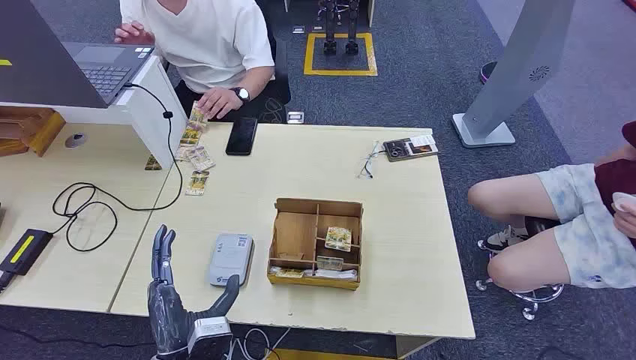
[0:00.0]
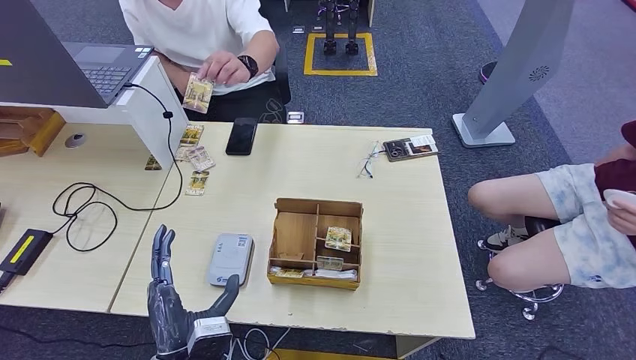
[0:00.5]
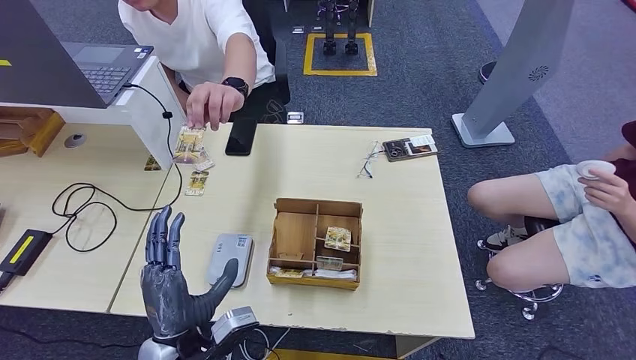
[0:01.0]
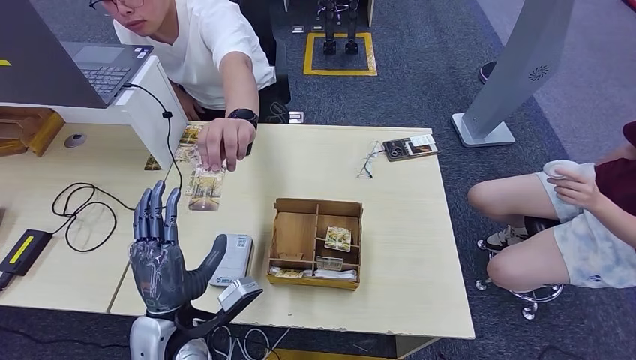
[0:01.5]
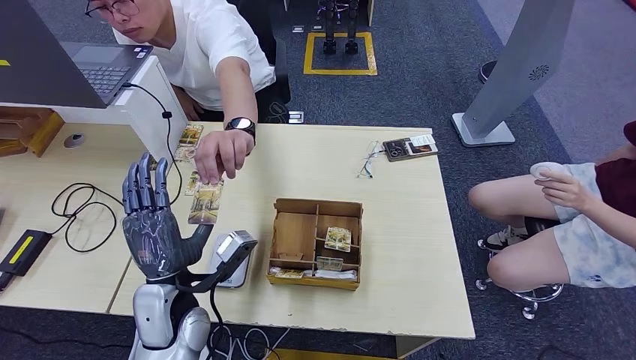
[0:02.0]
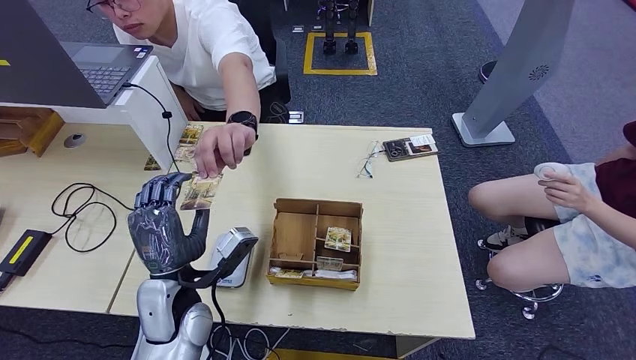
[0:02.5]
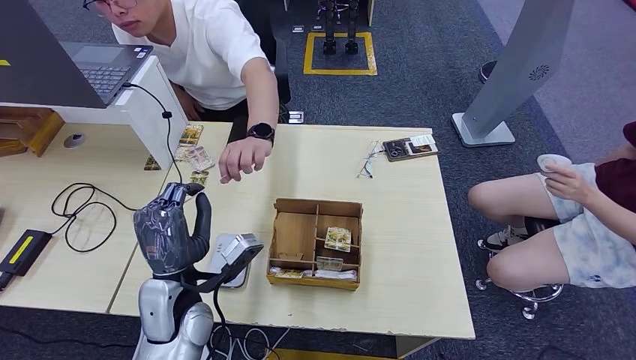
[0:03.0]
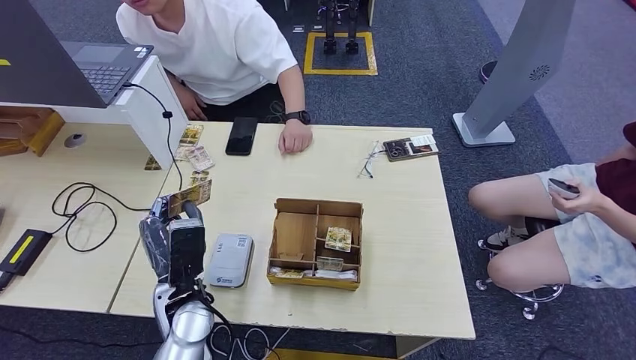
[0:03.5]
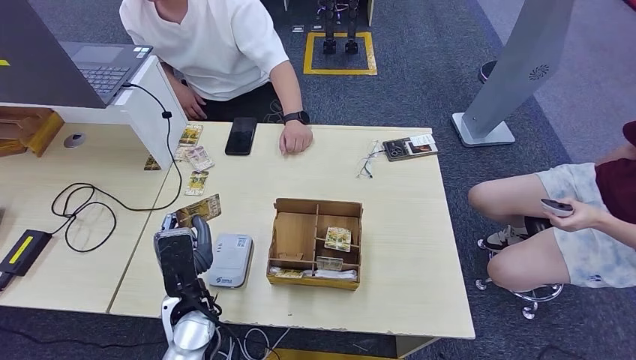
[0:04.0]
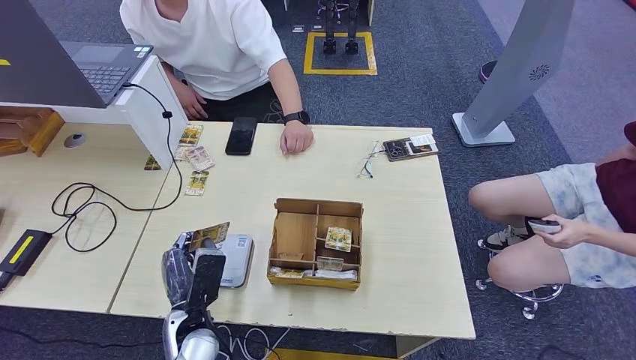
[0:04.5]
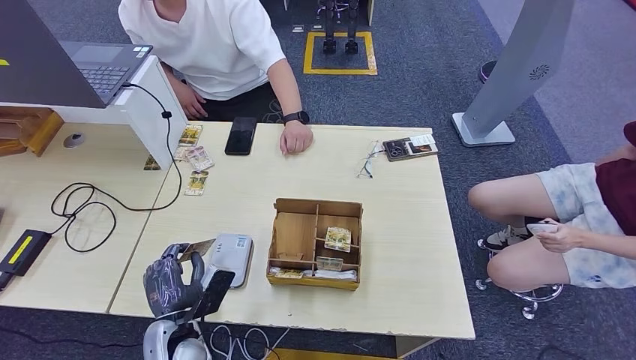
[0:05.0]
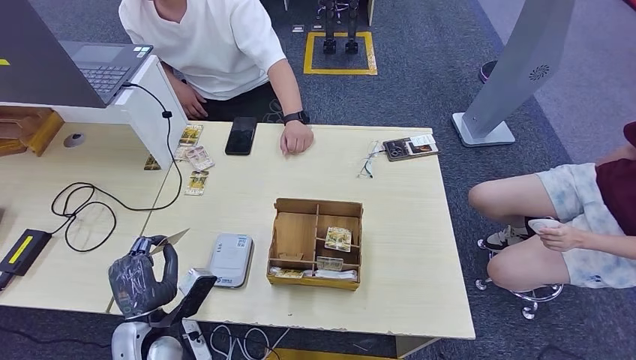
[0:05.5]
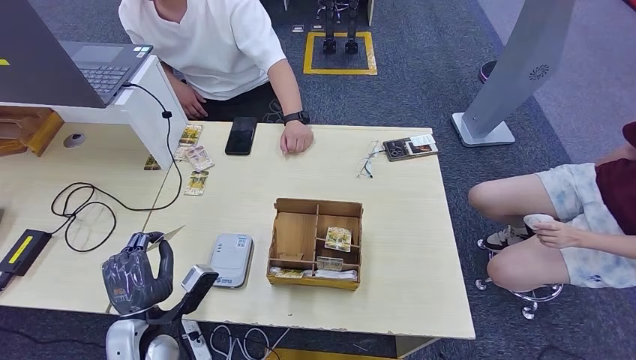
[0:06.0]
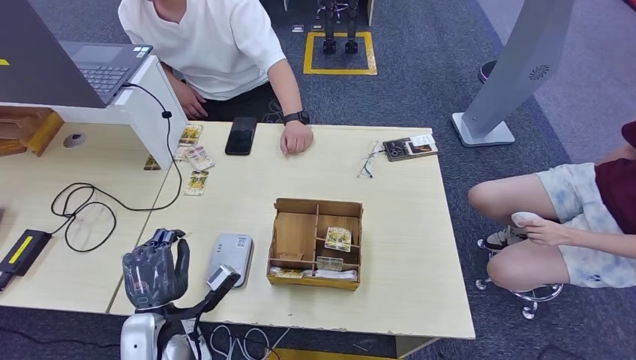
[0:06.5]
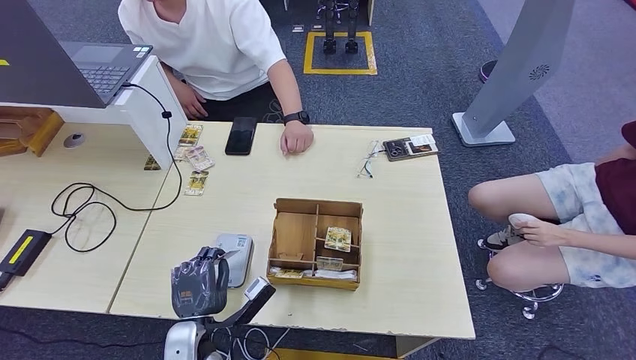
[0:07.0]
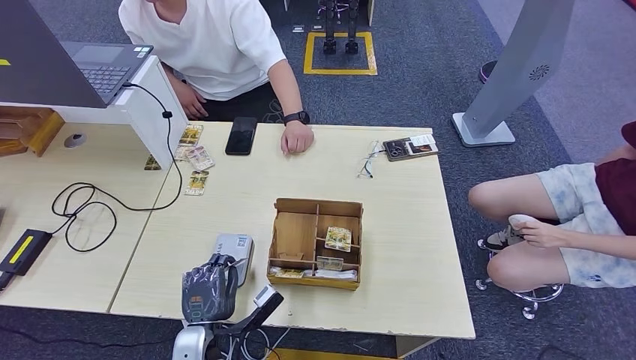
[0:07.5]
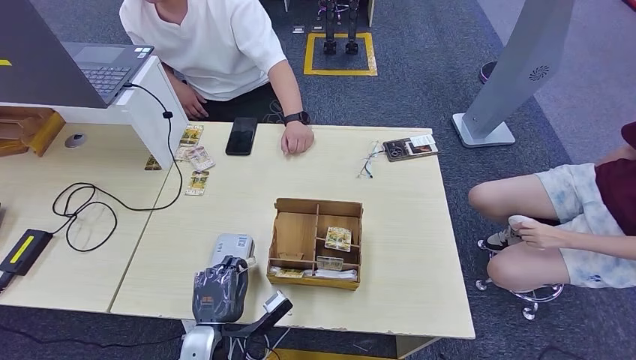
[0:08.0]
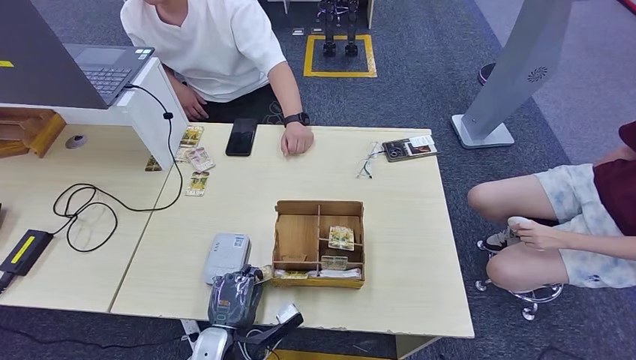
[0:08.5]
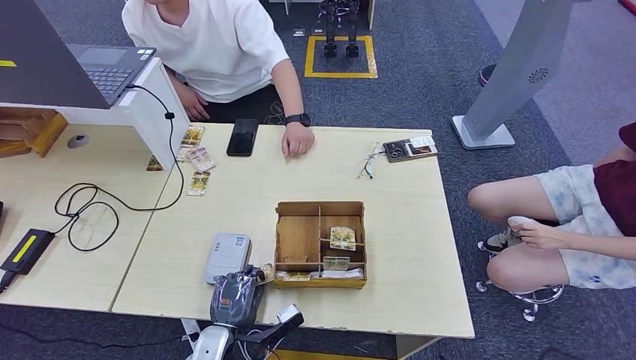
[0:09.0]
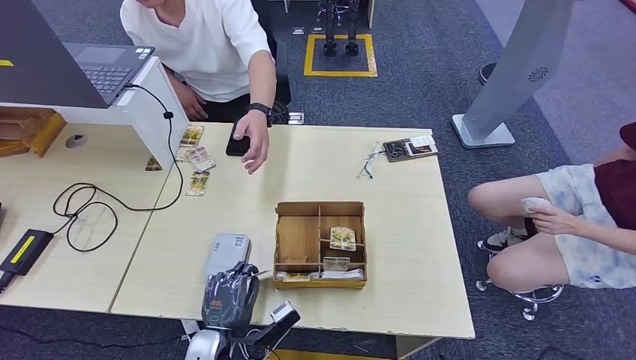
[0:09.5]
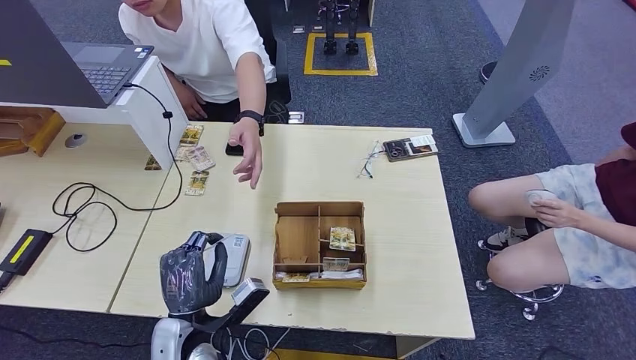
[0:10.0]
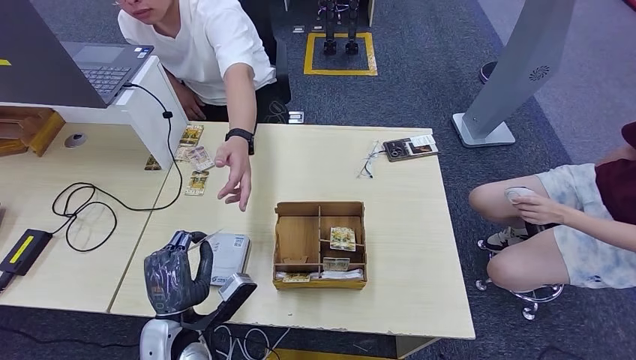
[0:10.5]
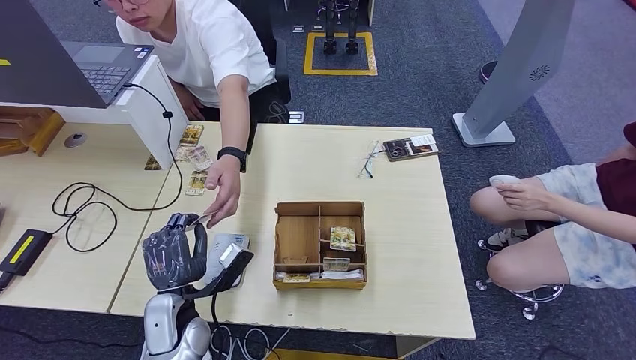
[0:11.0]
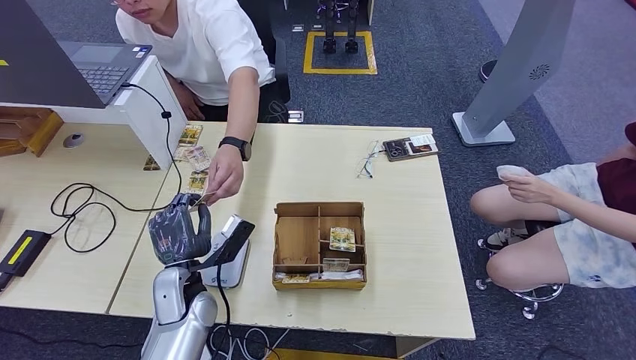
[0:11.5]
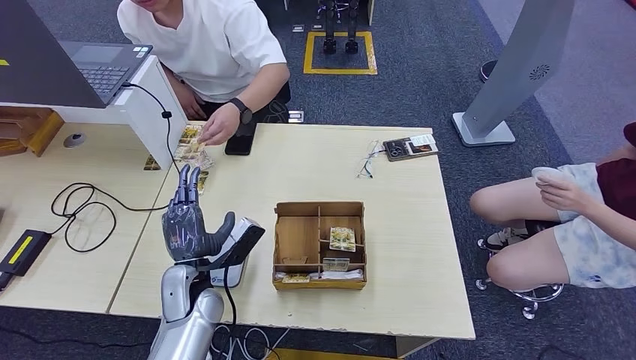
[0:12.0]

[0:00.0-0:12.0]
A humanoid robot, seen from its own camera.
Step, 0:00.0 to 0:03.5: Take the ID card from the person's hand.
Step, 0:04.0 to 0:10.0: Place the ID card on the card reader.
Step, 0:10.5 to 0:11.5: Hand the ID card to the person.
0:02.0 to 0:04.0: The left hand changes place by about 5 cm.
0:04.0 to 0:06.0: The left hand goes approximately 10 cm to the left.
0:06.0 to 0:08.0: The left hand travels to the right and downward by approximately 10 cm.
0:08.0 to 0:10.0: The left hand goes roughly 5 cm upward.
0:10.0 to 0:12.0: The left hand is displaced forward by some 10 cm.

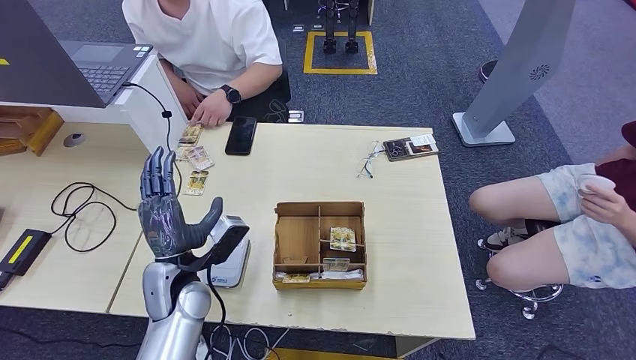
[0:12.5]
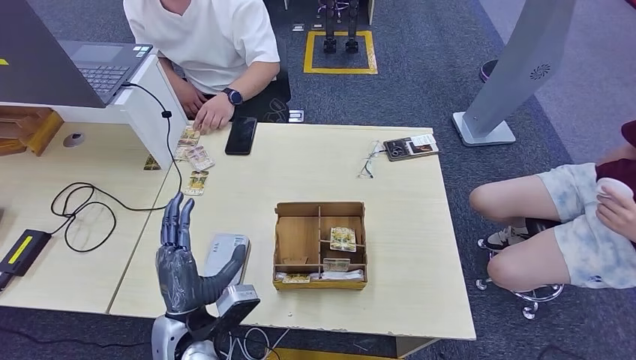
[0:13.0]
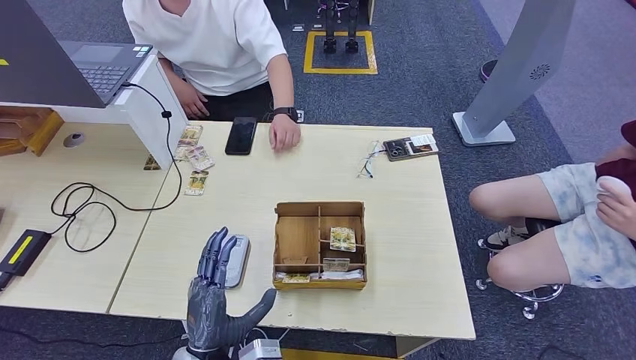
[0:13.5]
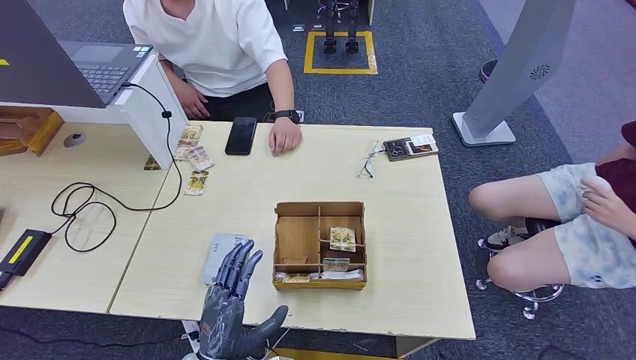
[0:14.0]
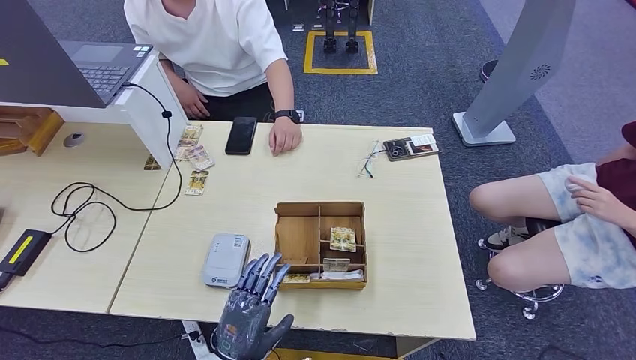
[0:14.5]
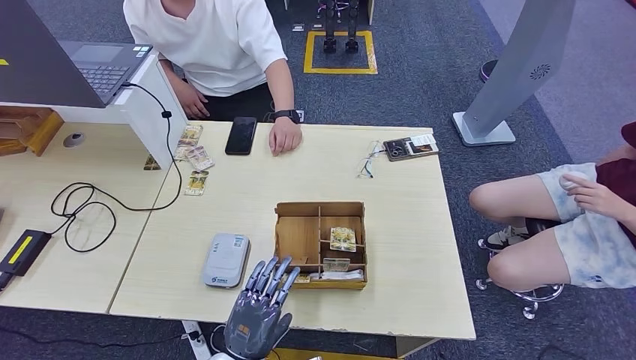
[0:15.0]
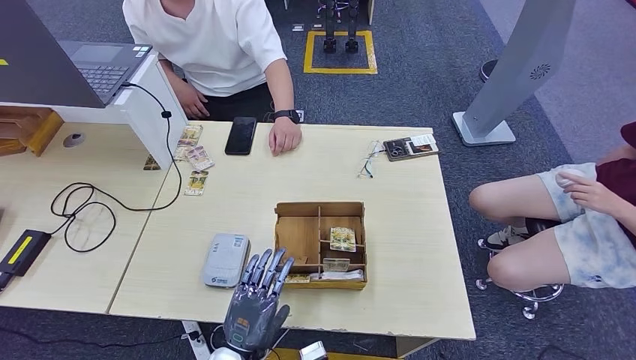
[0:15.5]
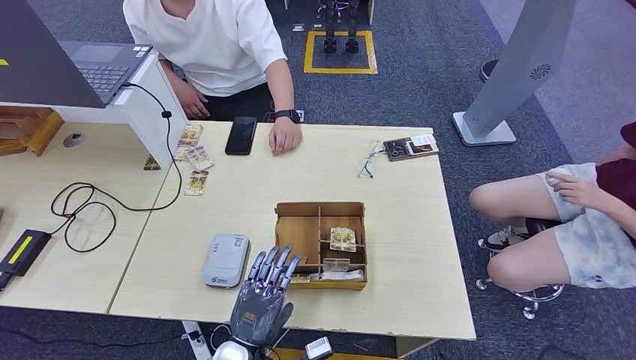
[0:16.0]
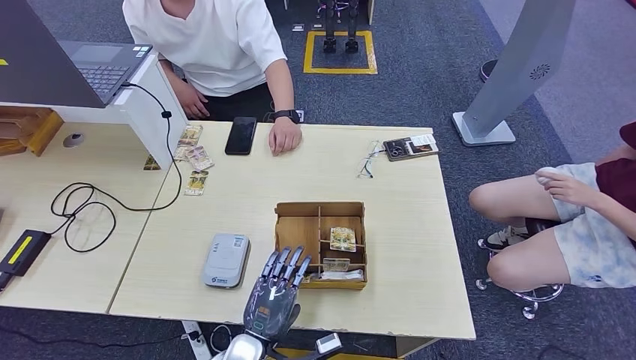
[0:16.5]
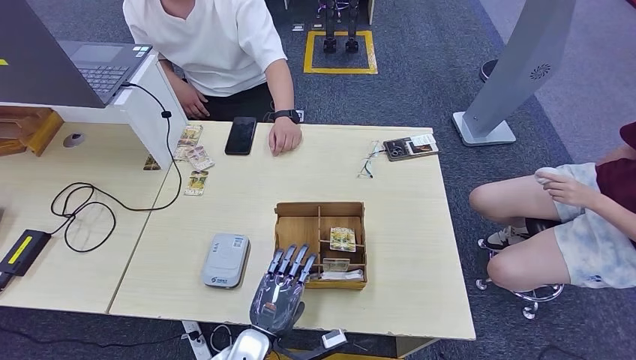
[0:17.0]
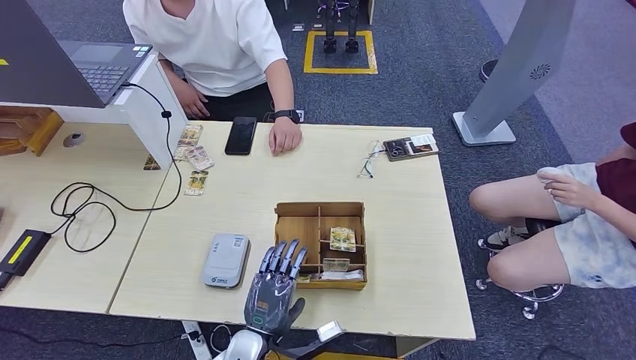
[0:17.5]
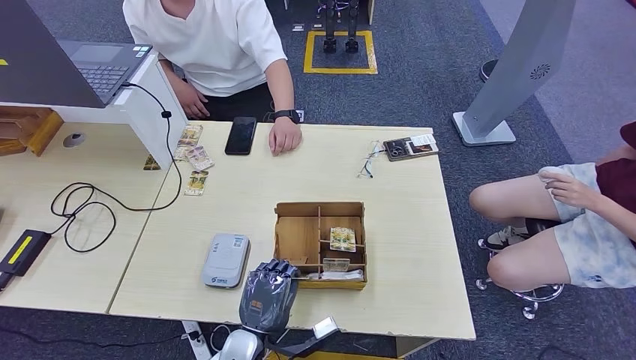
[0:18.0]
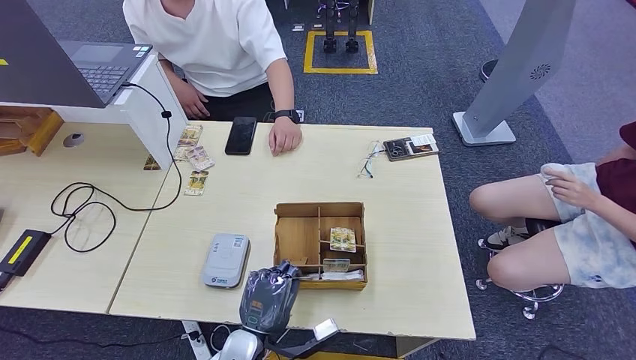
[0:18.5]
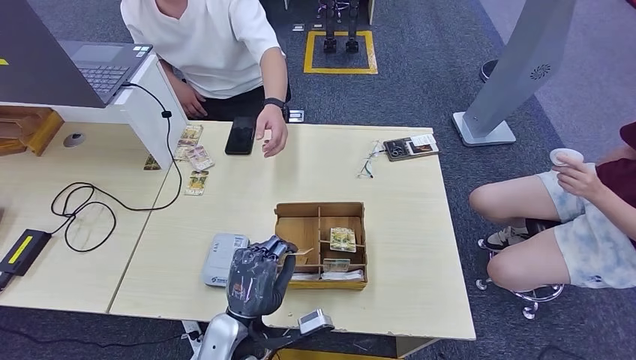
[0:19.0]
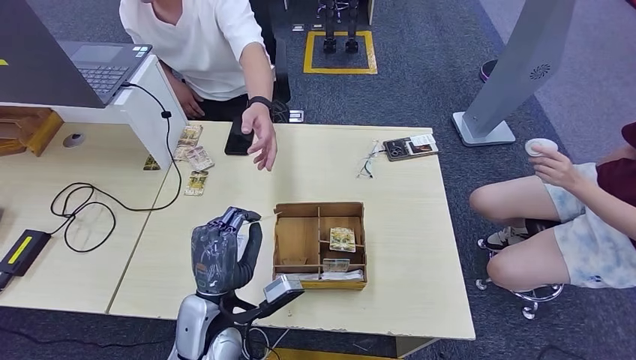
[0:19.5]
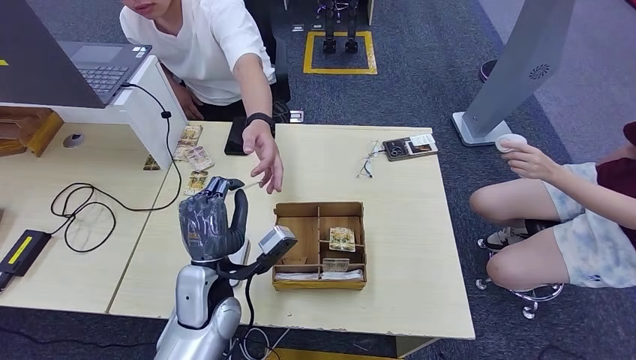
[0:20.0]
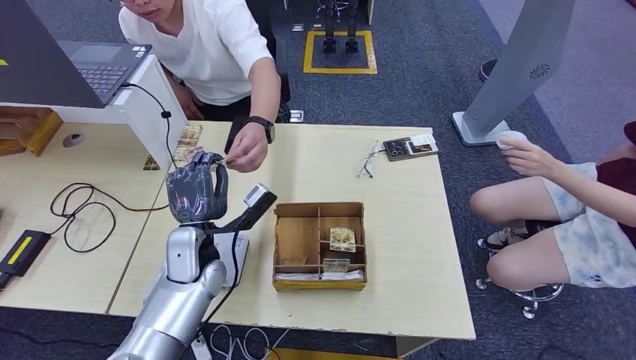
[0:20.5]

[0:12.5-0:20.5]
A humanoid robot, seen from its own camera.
Step, 0:12.5 to 0:18.0: Pick up the room key from the key card box.
Step, 0:18.5 to 0:20.5: Hand the room key to the person.
0:12.5 to 0:14.5: The left hand moves backward, downward and to the right, roughly 15 cm.
0:14.5 to 0:16.5: The left hand moves roughly 5 cm.
0:16.5 to 0:18.5: The hands make only small movements.
0:18.5 to 0:20.5: The left hand is displaced forward, upward and to the left by approximately 20 cm.
